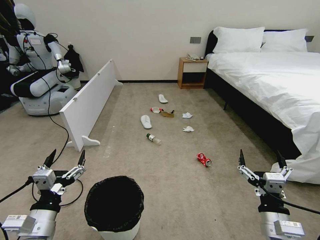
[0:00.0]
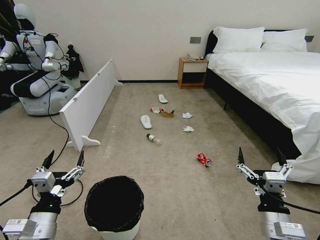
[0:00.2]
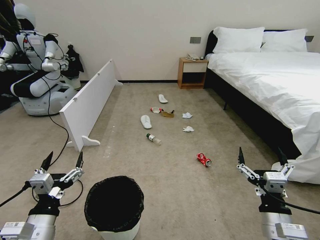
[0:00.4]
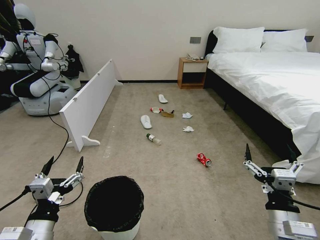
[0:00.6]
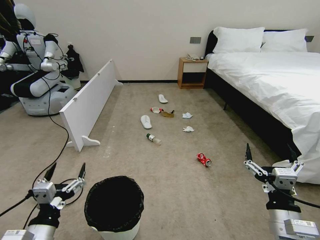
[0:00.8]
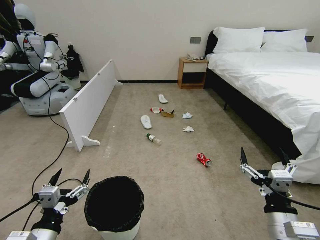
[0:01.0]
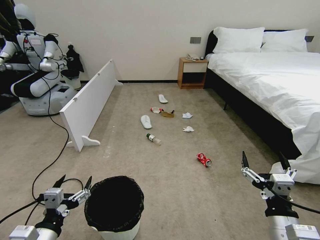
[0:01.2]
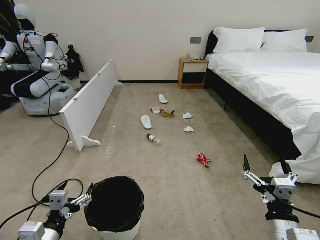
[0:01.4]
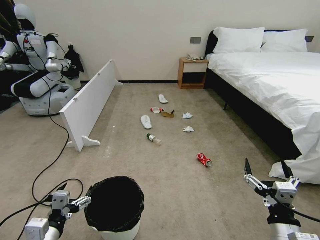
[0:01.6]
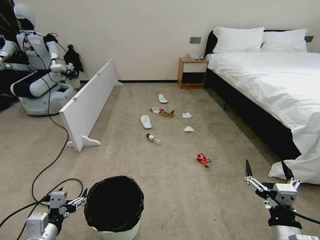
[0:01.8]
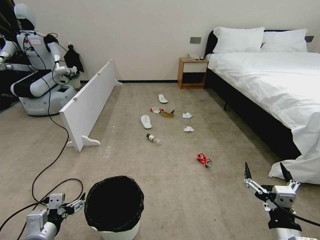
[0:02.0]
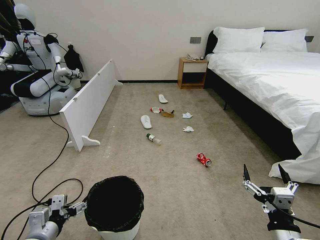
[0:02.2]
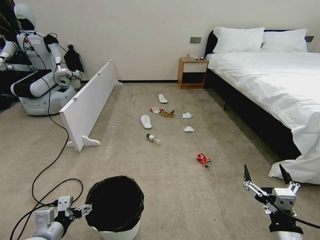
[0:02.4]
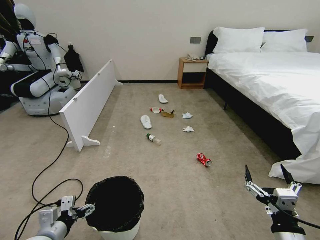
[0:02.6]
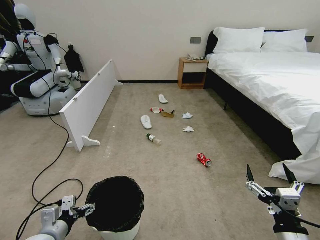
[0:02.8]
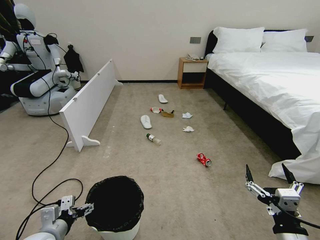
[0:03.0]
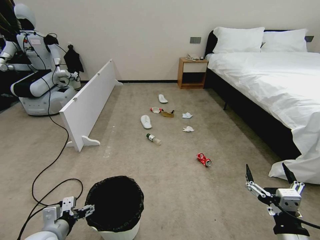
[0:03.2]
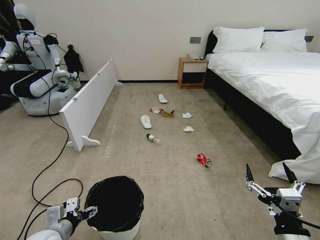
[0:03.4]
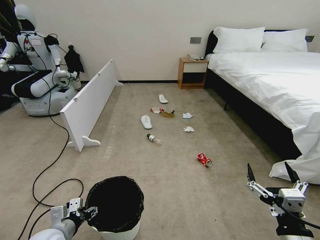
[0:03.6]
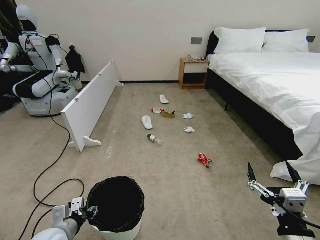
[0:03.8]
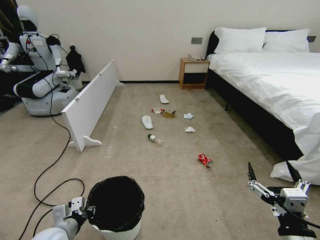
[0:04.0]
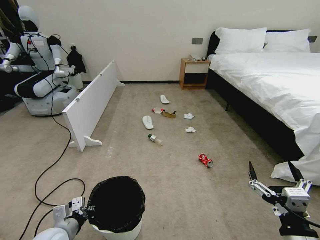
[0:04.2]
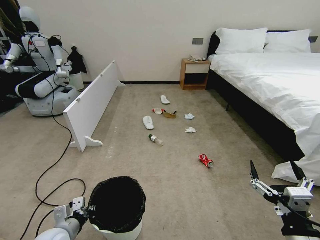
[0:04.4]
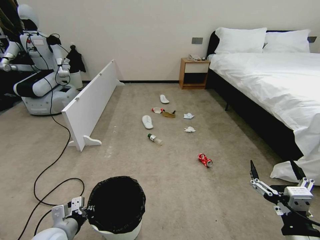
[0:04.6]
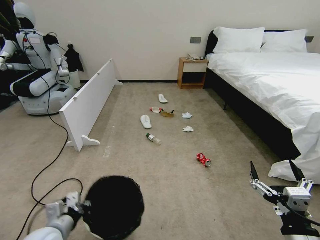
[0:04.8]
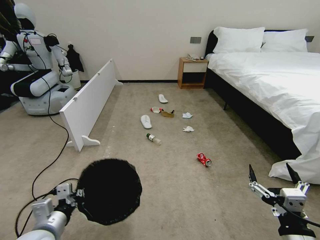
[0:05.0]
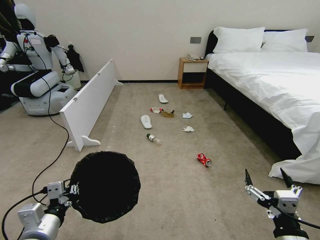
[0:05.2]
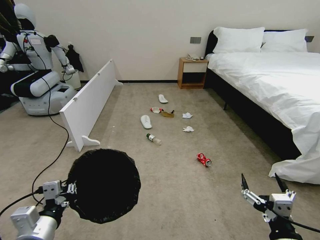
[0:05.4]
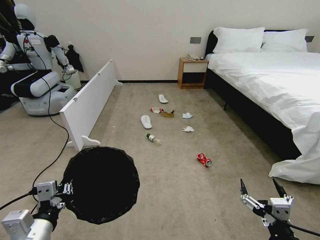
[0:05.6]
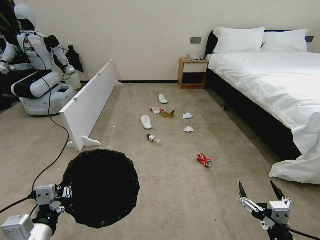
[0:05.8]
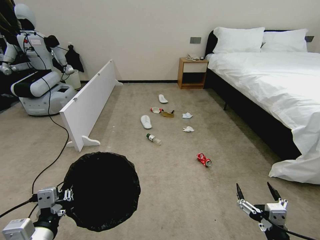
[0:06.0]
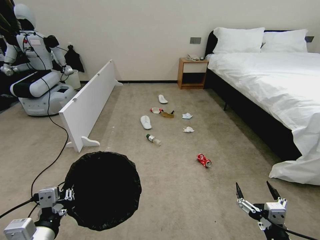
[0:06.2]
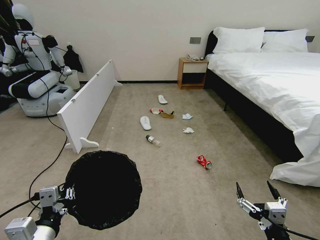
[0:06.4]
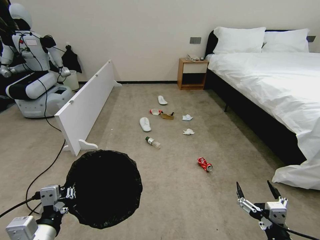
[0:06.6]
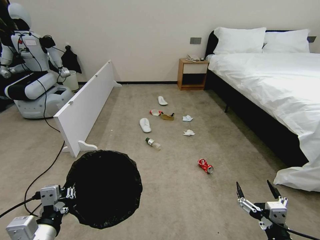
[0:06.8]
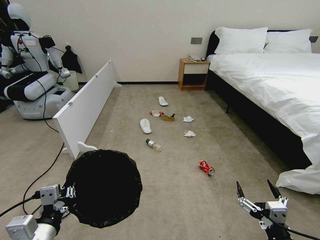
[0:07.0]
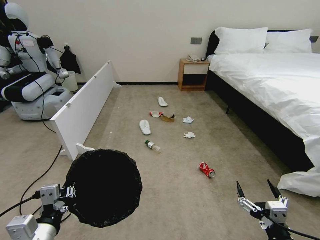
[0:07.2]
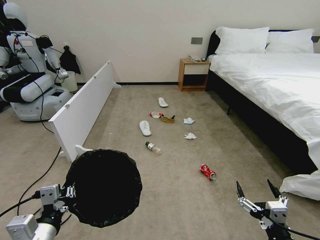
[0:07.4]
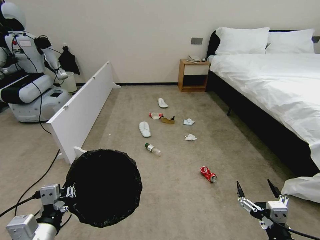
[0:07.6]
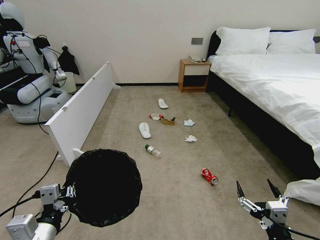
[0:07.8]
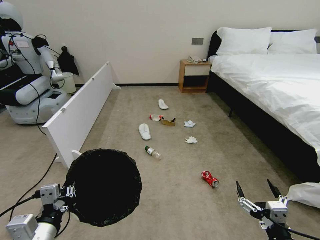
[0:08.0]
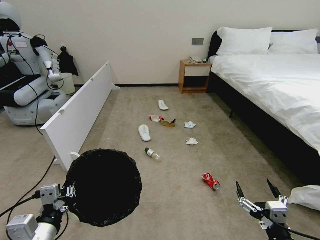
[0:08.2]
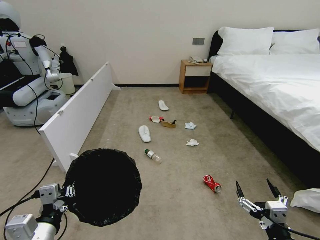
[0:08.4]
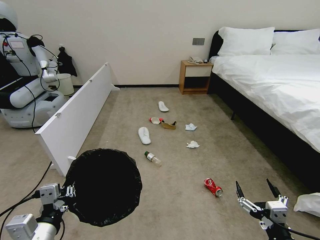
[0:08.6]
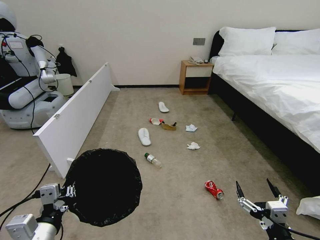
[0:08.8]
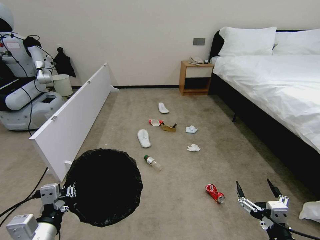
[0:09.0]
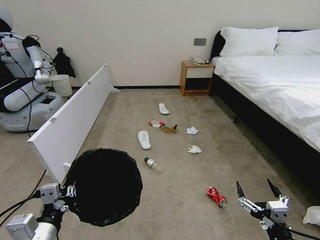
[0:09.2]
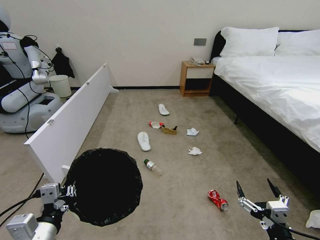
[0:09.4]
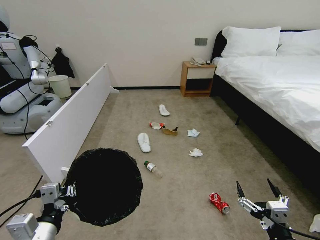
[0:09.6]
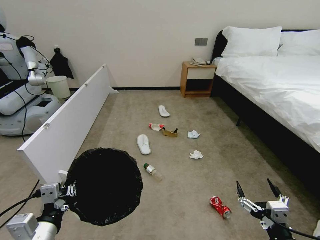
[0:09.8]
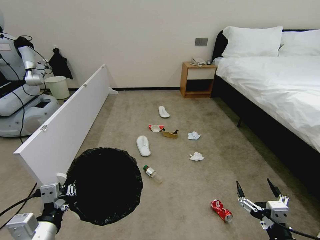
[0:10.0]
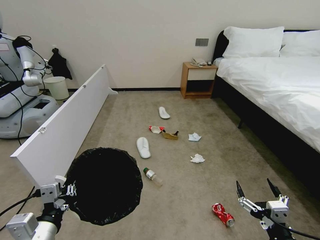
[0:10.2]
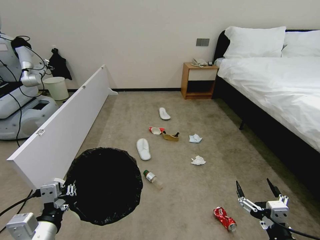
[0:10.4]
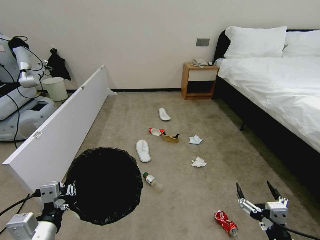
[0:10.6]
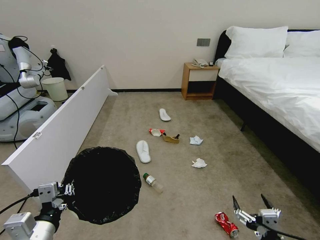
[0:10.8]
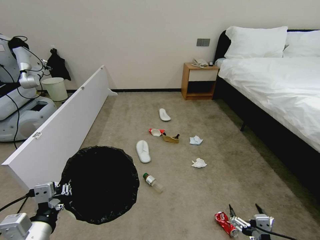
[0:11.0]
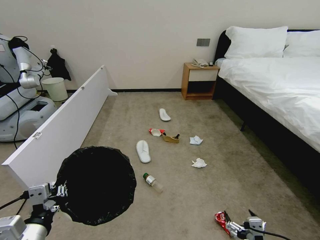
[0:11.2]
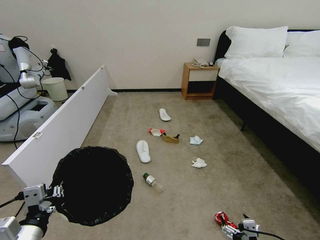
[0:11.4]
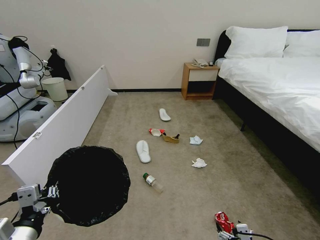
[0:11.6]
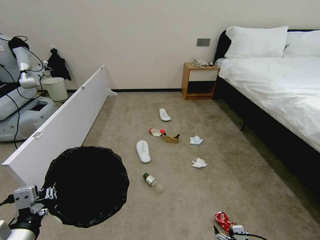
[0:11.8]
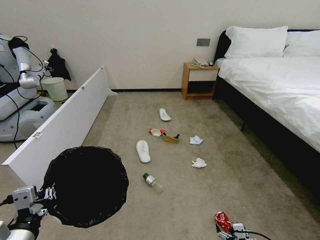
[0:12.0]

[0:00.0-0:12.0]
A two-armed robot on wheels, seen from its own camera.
Task of the whole recording: Pick up the trash bin, then pick up the garbage from the floor and place it into the trash bin.
0:01.6 to 0:03.0: The left gripper shifts approximately 5 cm forward.
0:03.0 to 0:04.4: The left gripper closes its fingers.
0:04.4 to 0:06.0: The right gripper goes some 5 cm downward, while the left gripper moves upward and backward, roughly 15 cm.
0:07.6 to 0:10.4: Both grippers stay about where they are.
0:10.4 to 0:12.0: The right gripper is displaced downward by about 15 cm.

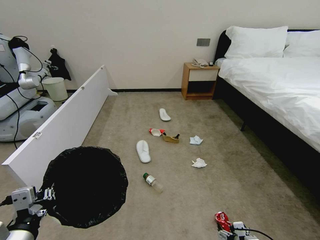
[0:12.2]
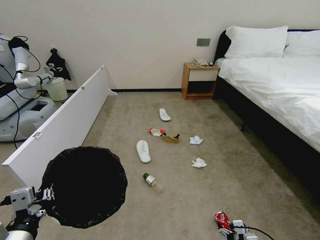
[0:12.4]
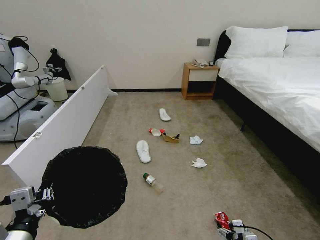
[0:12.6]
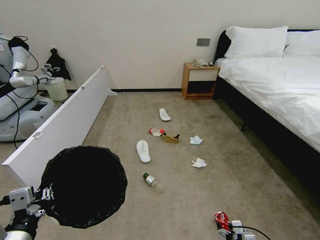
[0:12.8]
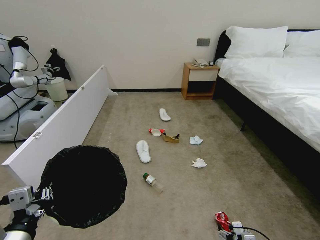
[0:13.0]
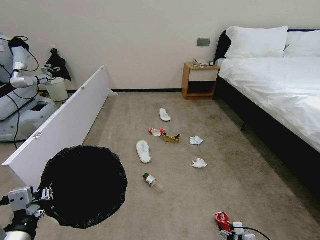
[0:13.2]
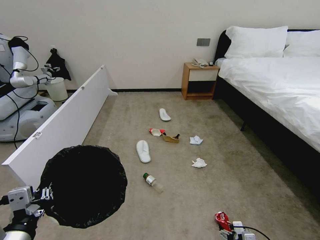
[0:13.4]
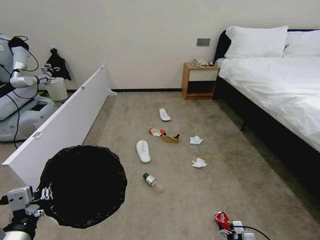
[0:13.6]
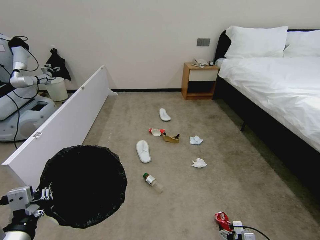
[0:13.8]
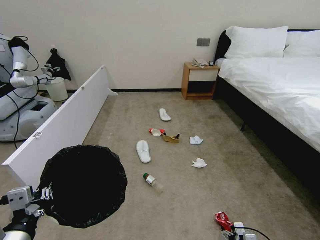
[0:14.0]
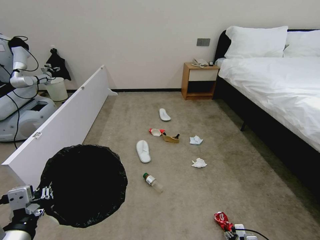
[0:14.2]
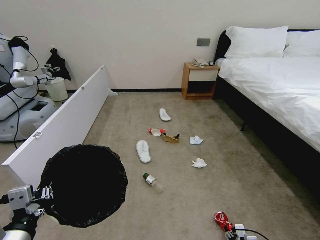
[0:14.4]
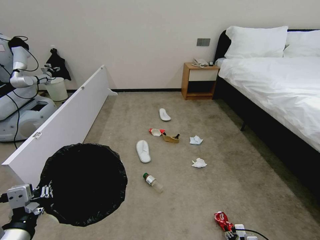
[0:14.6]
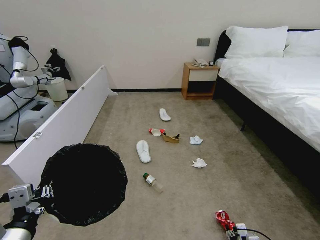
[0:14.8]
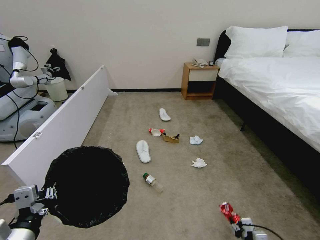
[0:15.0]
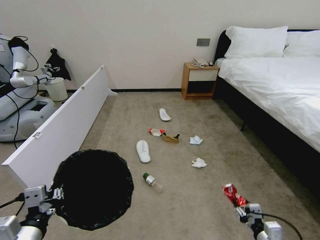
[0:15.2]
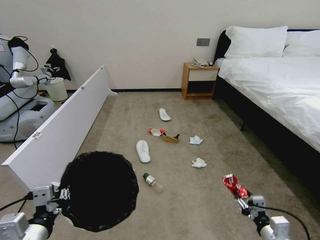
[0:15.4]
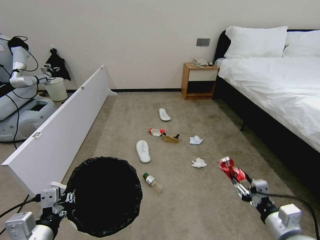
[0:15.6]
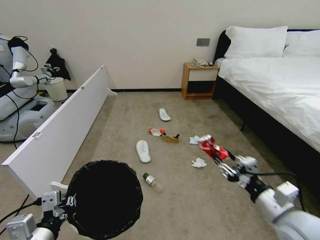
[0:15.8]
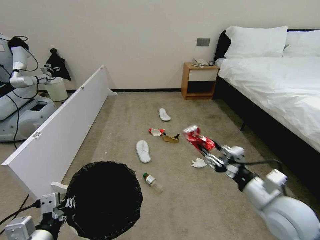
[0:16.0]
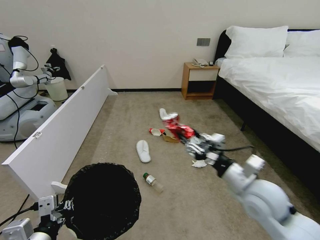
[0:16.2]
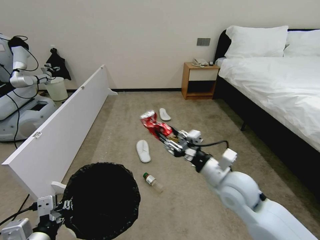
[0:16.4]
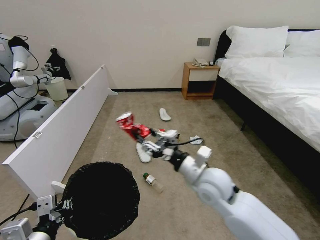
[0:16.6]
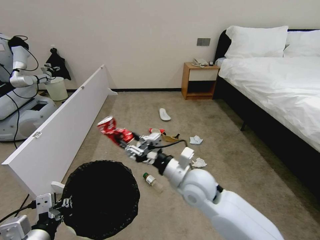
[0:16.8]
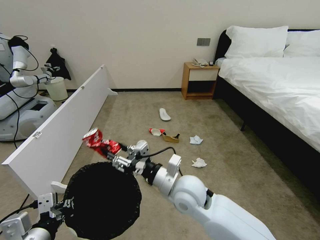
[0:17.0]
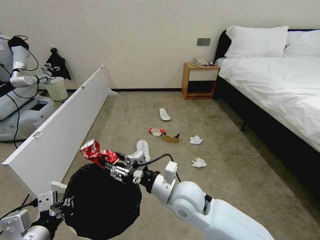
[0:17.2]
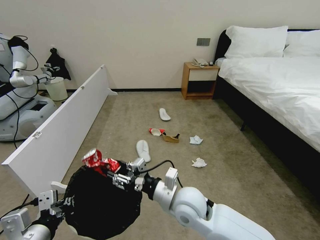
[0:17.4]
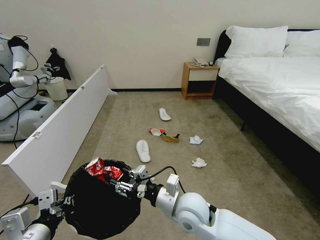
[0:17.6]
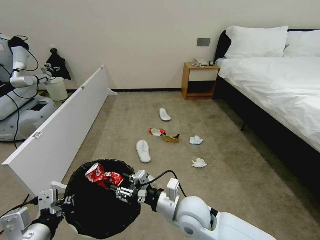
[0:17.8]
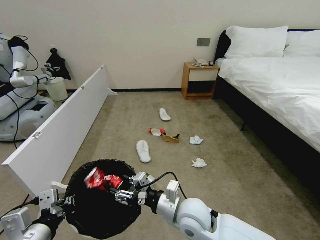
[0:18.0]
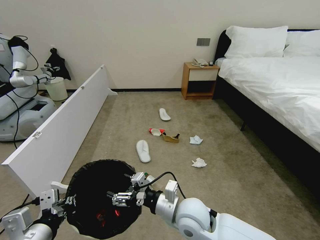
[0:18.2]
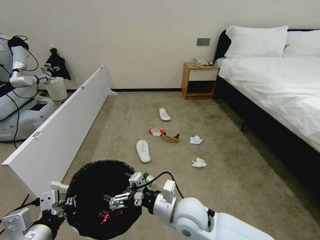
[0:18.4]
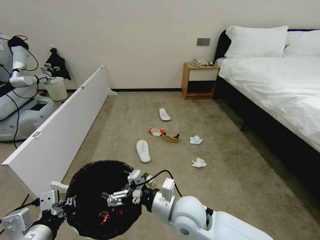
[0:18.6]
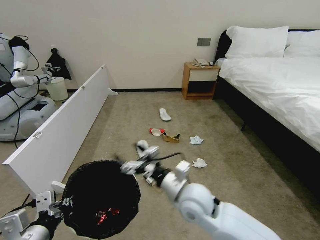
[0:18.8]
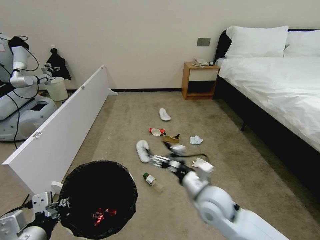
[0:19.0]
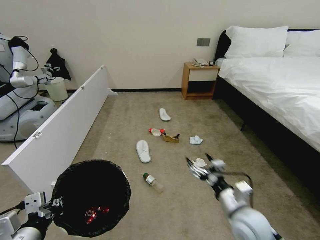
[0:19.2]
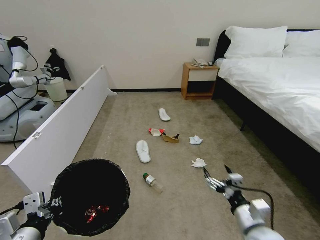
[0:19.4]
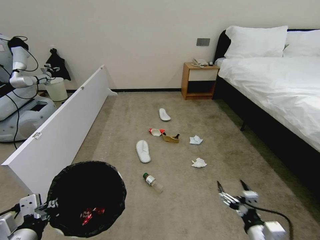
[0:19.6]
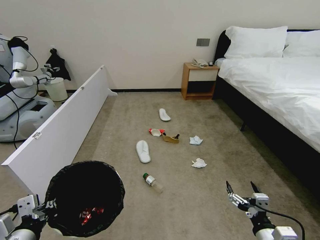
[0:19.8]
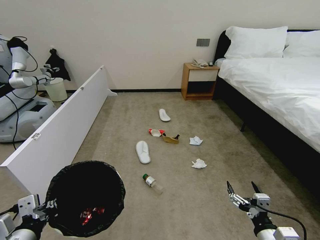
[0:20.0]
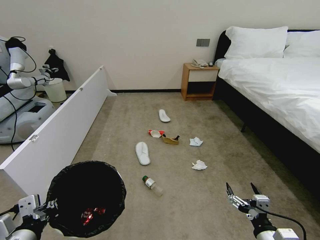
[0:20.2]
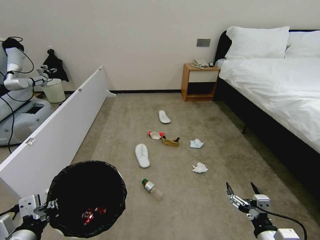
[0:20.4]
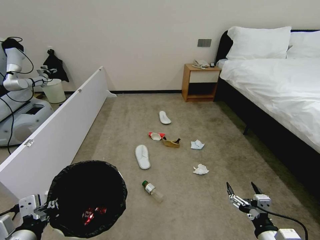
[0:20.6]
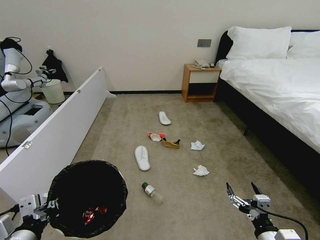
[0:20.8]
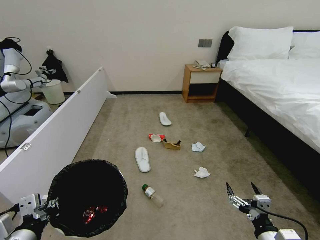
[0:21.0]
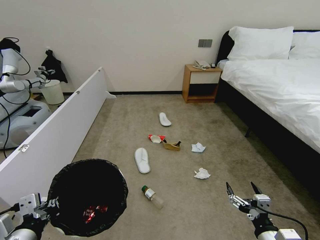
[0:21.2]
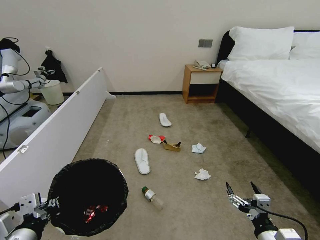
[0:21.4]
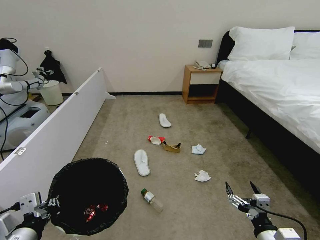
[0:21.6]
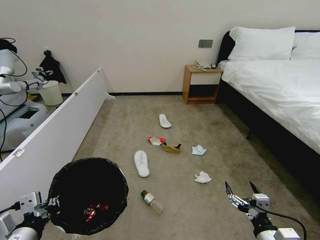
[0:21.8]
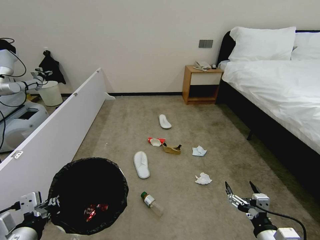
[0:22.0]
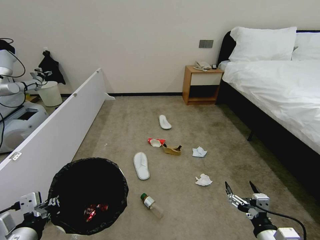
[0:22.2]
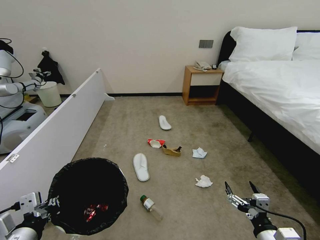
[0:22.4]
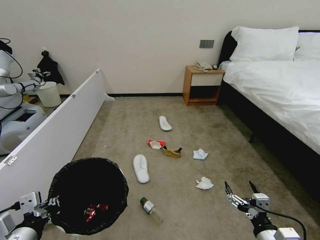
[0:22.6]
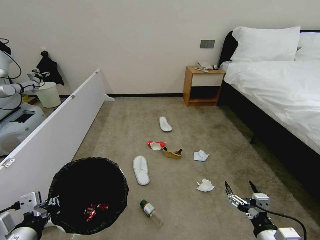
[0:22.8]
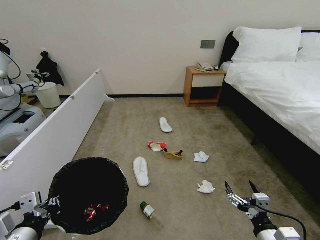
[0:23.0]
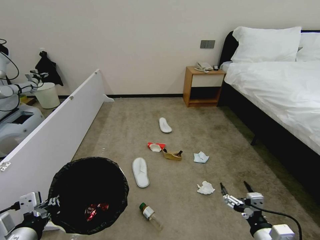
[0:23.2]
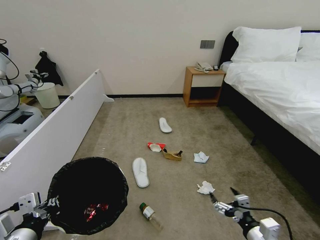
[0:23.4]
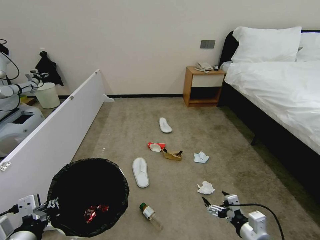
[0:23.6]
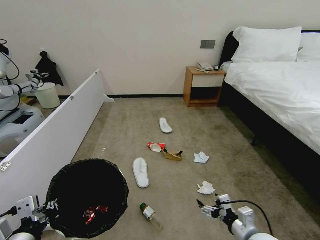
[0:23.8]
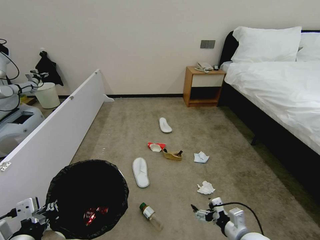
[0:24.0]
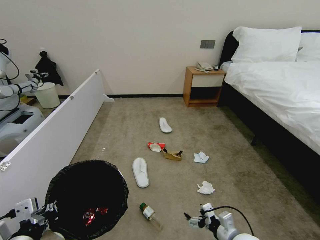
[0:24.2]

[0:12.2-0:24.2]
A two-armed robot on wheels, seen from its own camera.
Task of the whole recording: Pick up the trash bin, then pick up the garbage from the floor and place it into the trash bin.
0:13.8 to 0:15.2: The right gripper moves upward, about 10 cm, and closes its fingers.
0:15.2 to 0:16.6: The right gripper moves upward, to the left and forward, approximately 35 cm.
0:16.6 to 0:18.2: The right gripper shifts approximately 10 cm downward, backward and to the left.
0:18.2 to 0:19.8: The right gripper shifts some 25 cm to the right and backward.
0:19.8 to 0:21.2: The grippers make only small movements.
0:21.2 to 0:22.6: Both grippers stay put.
0:22.6 to 0:24.2: The right gripper moves downward and forward, roughly 10 cm.
